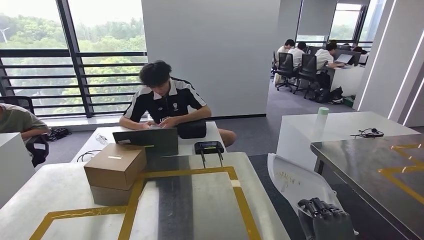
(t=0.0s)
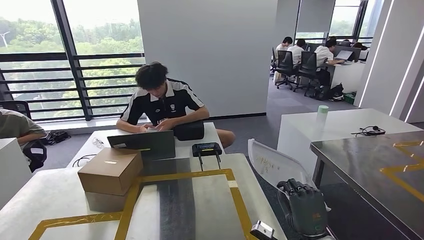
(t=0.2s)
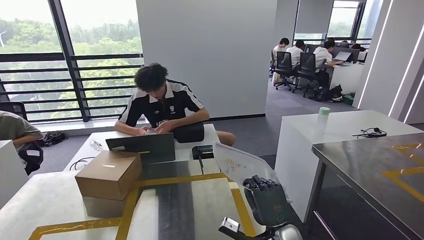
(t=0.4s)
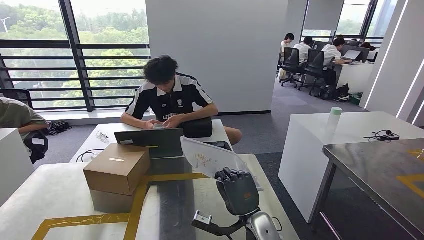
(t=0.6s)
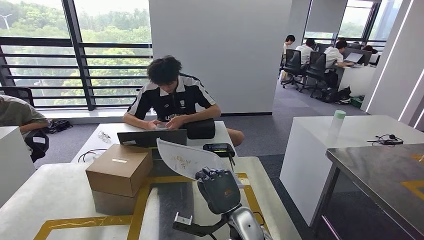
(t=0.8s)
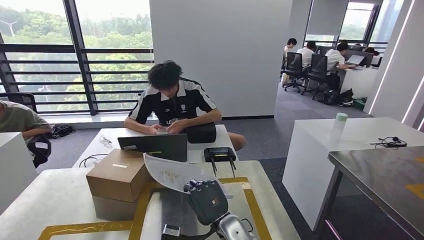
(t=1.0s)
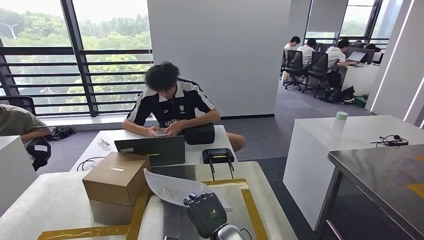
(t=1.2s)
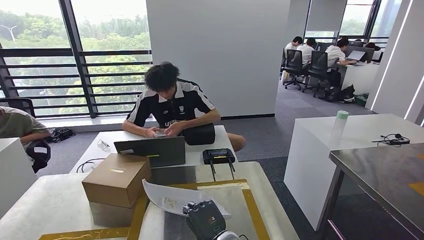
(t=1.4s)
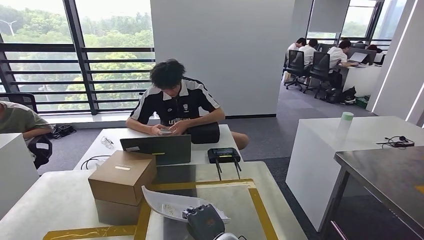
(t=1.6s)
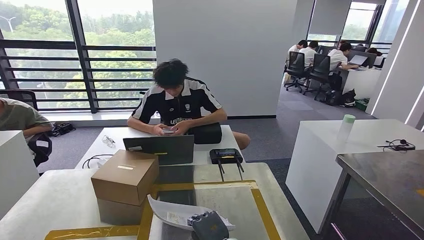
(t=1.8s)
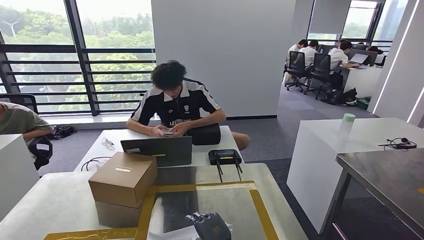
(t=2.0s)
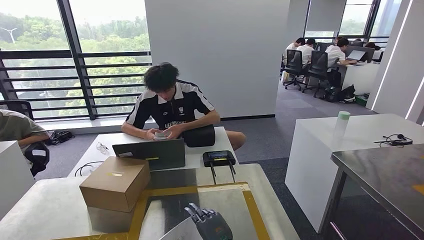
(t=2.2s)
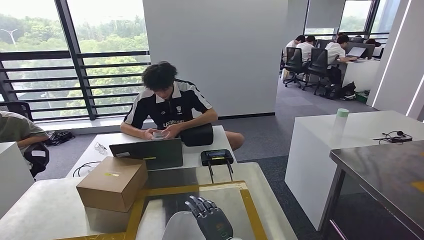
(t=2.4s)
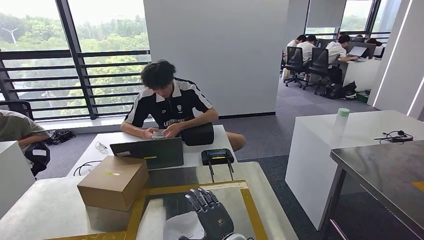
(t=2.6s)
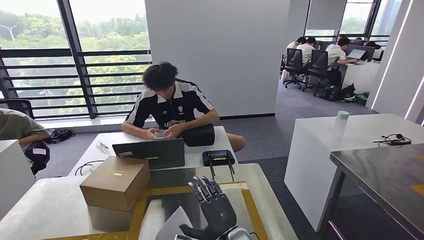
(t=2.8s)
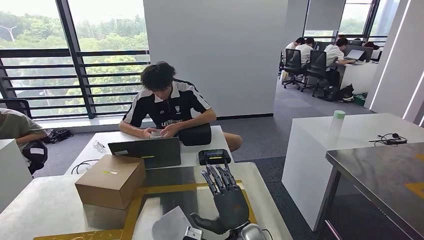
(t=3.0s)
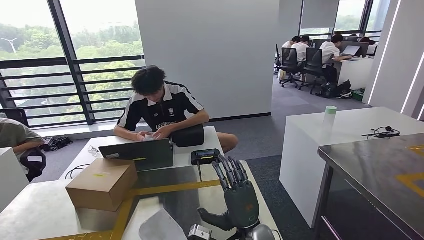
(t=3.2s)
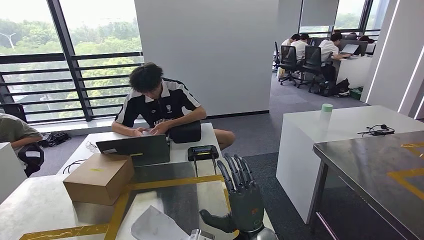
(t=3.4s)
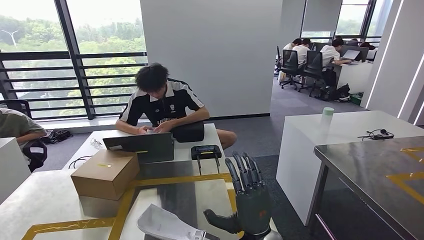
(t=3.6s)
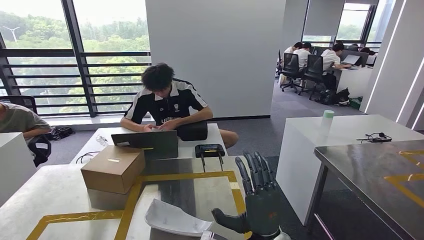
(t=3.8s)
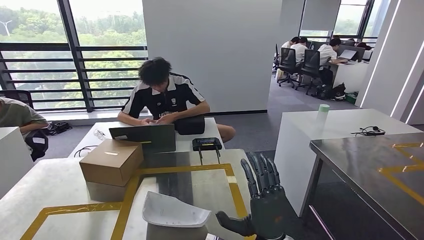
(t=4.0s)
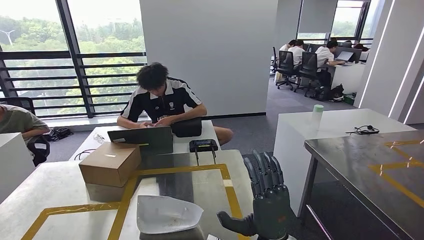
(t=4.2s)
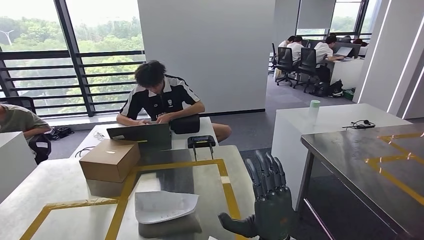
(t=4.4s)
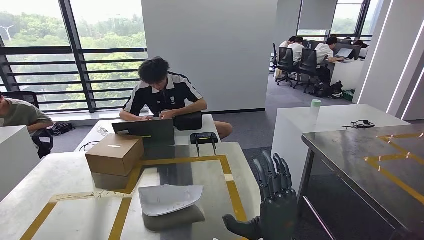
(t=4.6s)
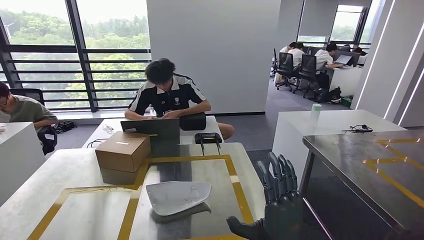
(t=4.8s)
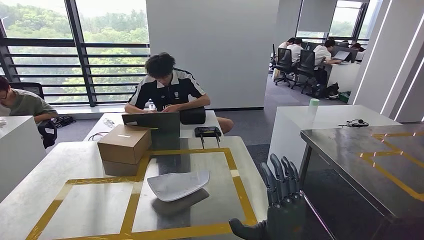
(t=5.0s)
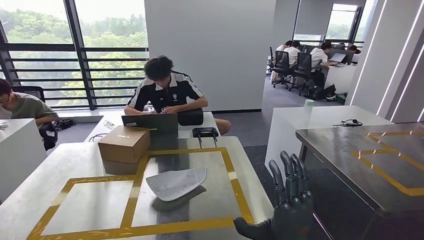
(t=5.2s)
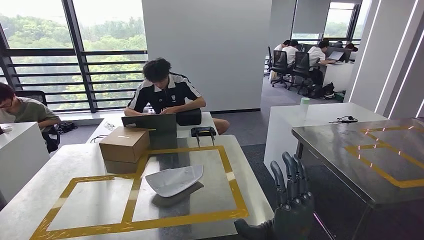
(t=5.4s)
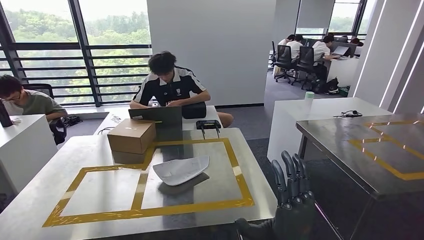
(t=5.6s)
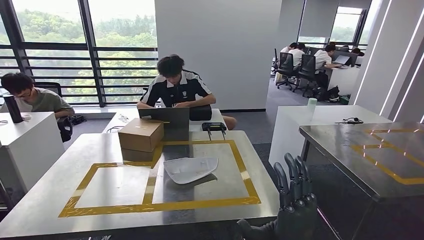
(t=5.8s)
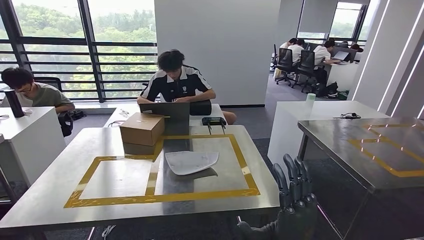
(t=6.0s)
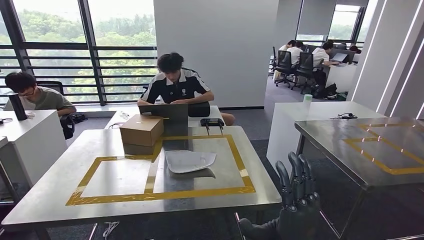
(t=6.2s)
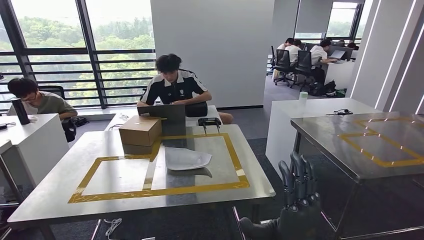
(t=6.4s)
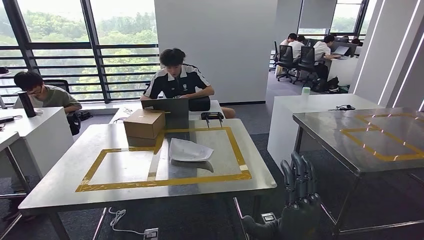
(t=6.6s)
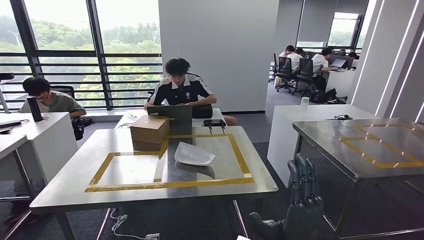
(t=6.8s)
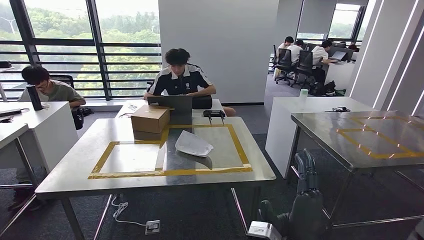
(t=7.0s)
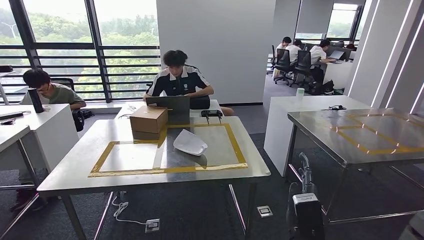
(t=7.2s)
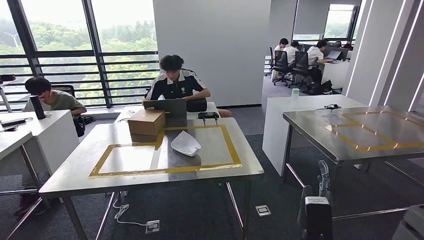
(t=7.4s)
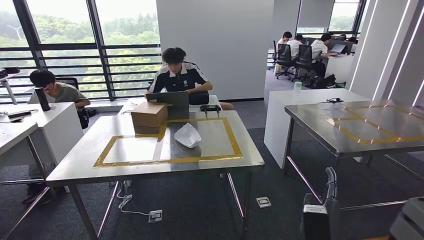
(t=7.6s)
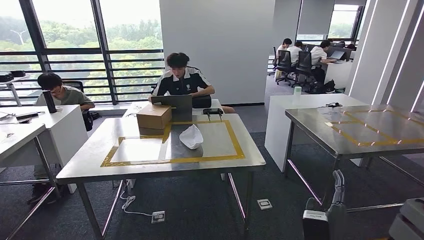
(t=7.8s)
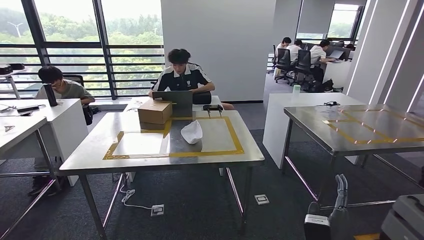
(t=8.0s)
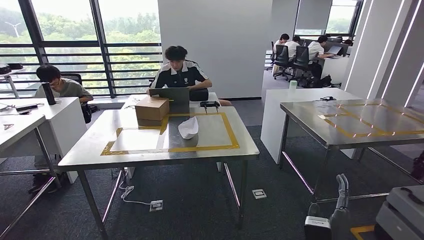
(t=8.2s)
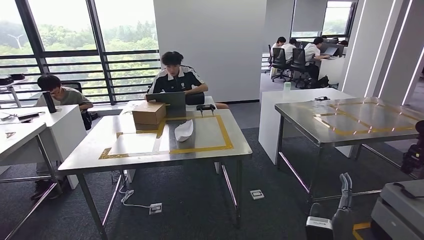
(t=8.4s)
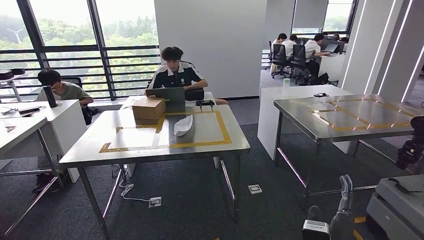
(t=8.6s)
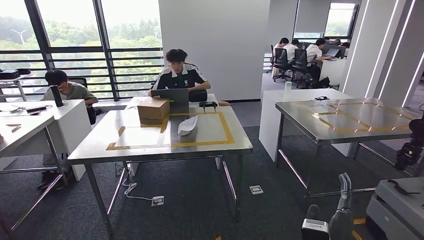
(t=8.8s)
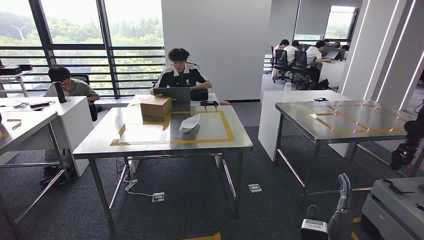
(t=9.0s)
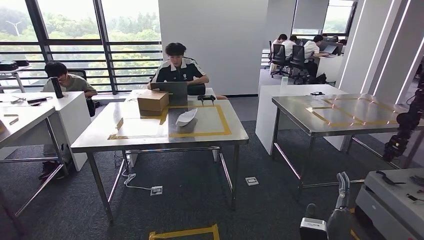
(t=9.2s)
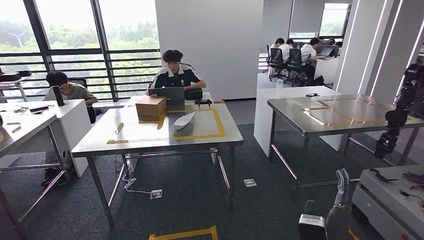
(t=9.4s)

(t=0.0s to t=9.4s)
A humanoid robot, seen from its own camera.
Step, t=0.4s - t=4.0s: Insert the small component into the corresponding slot on the workbench.
Step, t=4.4s - t=9.4s: Return to the initial position at the workbench.
